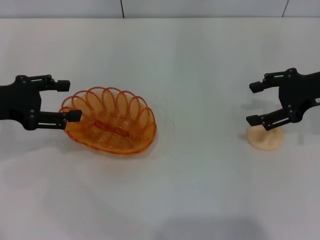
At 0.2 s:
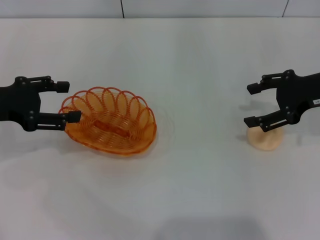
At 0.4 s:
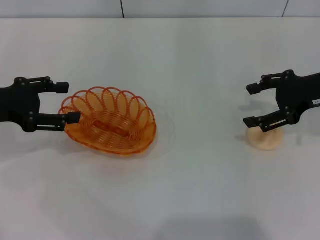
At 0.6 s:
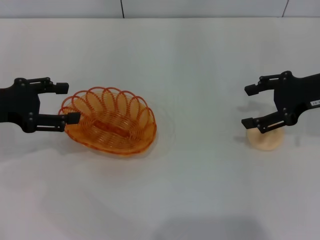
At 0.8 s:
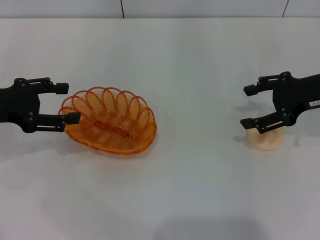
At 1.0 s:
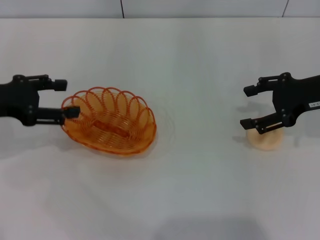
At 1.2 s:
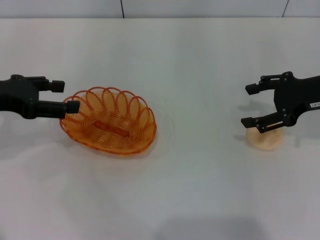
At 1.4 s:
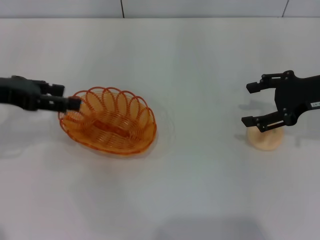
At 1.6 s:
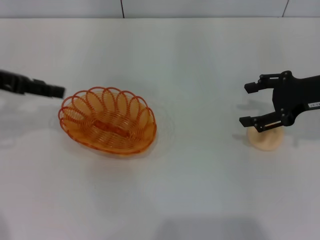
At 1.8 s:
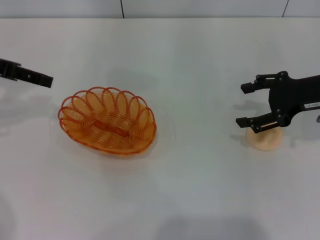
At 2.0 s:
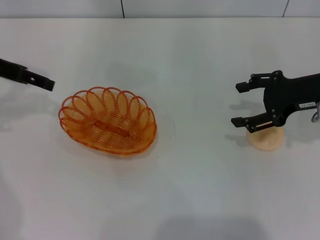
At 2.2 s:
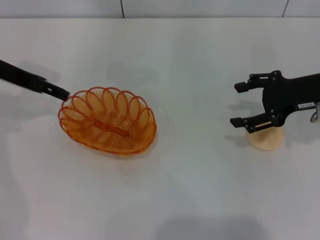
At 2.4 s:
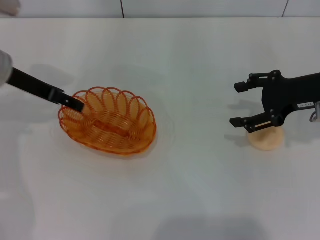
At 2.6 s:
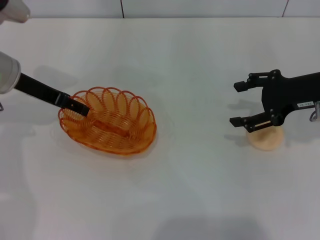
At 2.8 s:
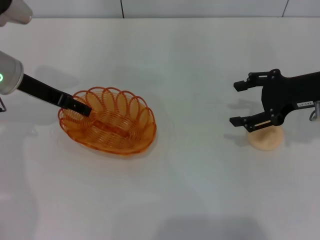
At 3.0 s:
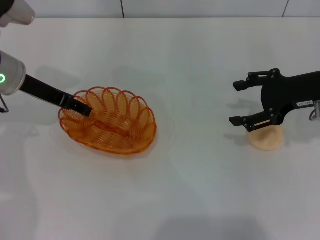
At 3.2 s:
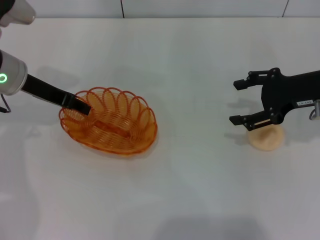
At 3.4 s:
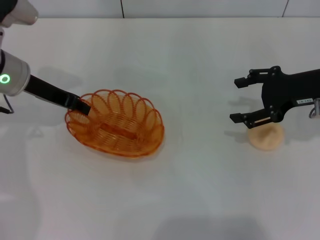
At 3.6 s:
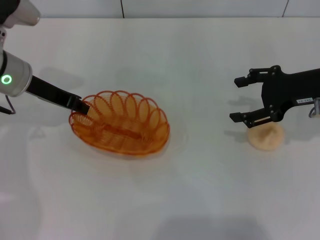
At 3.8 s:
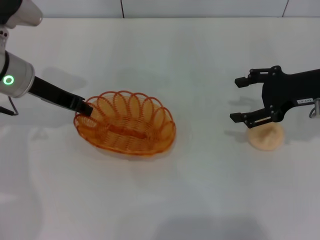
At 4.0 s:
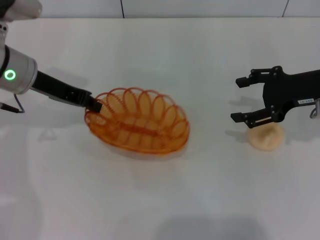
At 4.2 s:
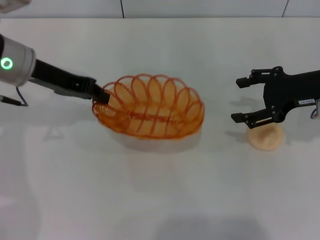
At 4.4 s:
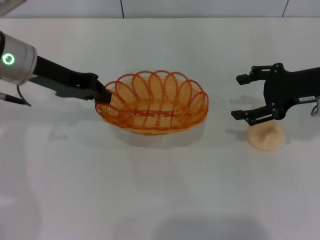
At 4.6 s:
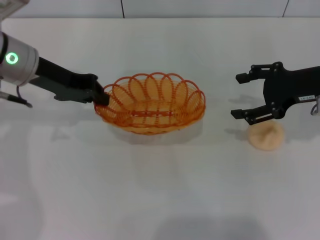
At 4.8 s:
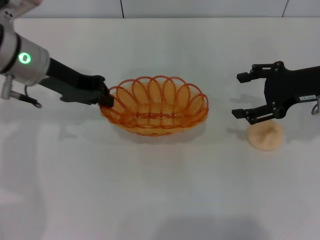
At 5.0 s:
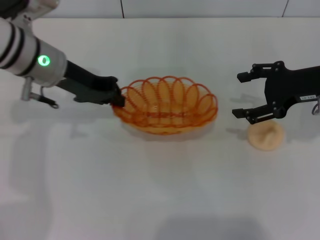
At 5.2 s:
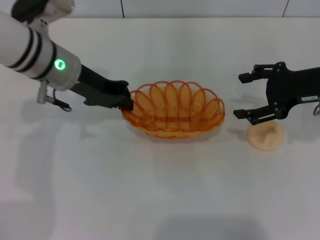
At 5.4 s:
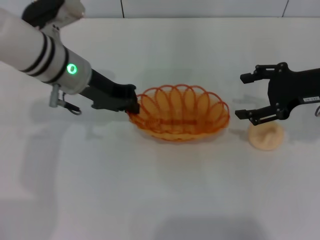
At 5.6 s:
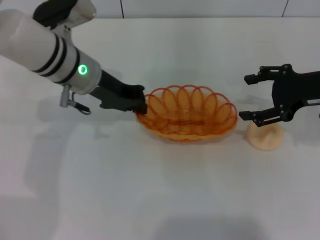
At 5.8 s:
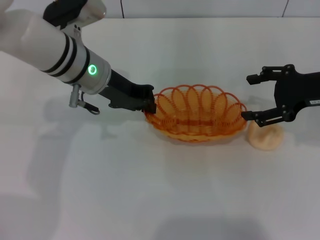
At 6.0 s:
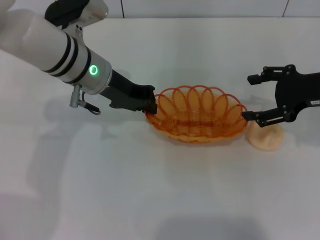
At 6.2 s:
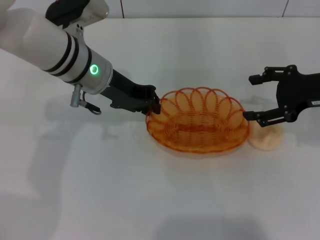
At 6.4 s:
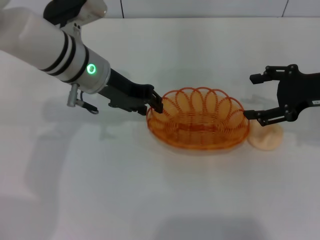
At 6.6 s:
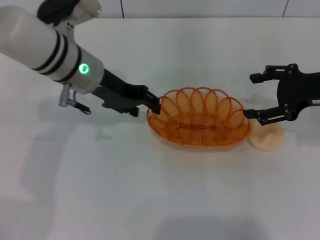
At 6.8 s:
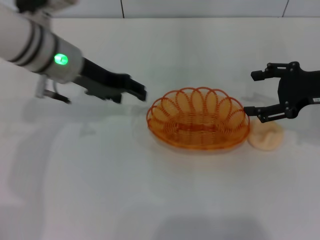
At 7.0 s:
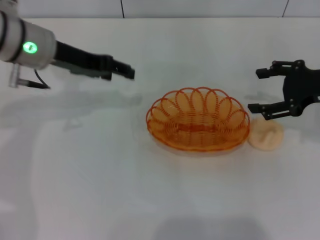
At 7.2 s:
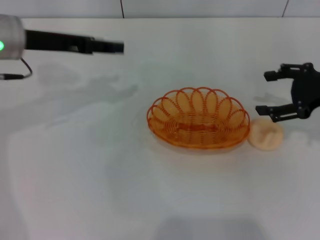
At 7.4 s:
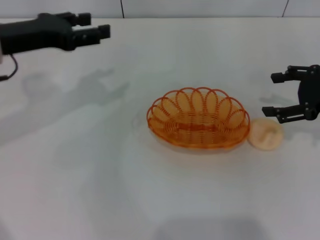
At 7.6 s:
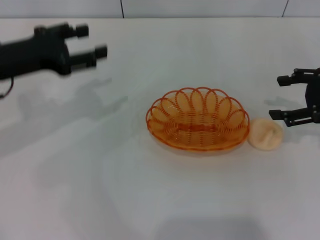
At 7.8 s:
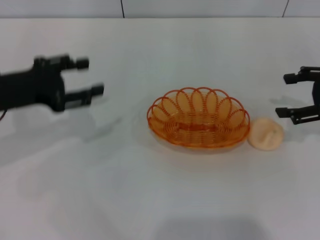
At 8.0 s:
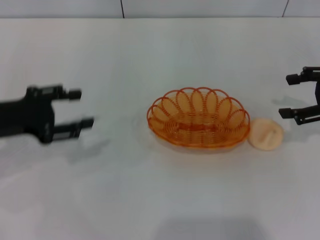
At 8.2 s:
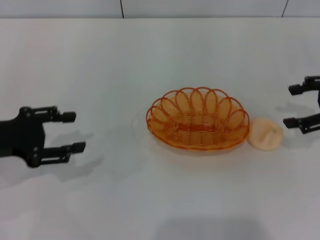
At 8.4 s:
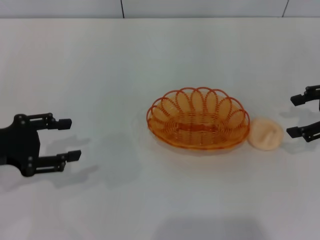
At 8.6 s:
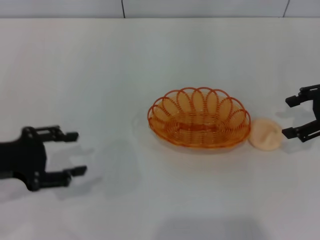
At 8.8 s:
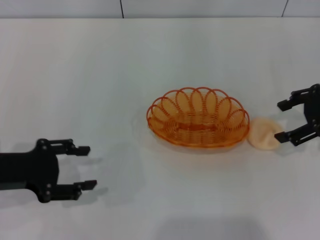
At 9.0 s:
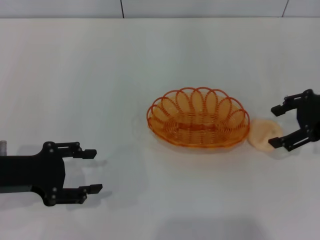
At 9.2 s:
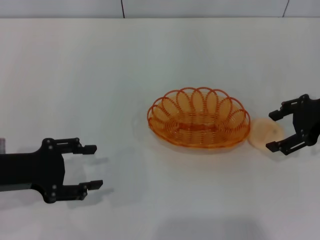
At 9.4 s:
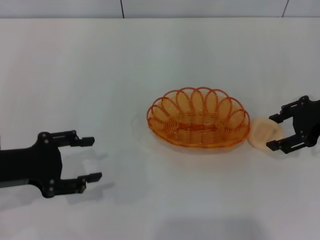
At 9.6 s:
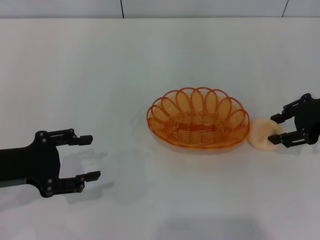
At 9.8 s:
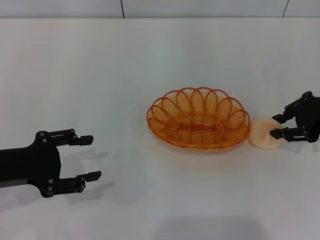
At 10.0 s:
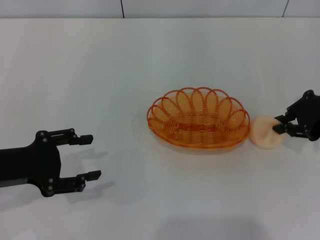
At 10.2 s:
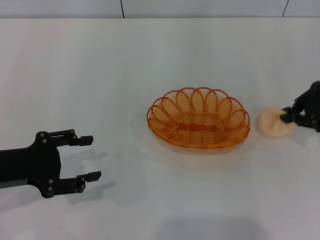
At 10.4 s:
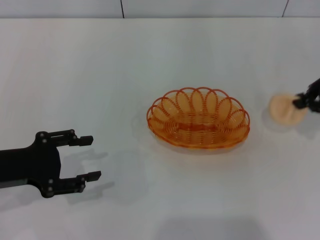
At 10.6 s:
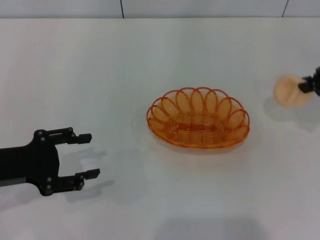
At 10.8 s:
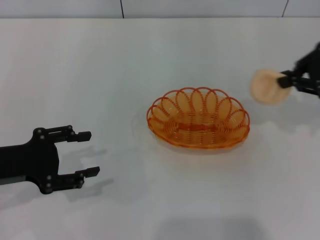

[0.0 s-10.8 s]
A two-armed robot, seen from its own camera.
Step, 0.0 to 4.2 s: Pick up the basket with the left gripper.
Step, 4.6 to 7.0 s: Place the basket in the center of view with the left gripper.
Step, 7.2 to 10.4 s: Pick up the egg yolk pastry with the right gripper.
0.0 to 1.6 s: The left gripper moves upward, approximately 5 cm.
1.6 to 3.0 s: The left gripper goes roughly 10 cm to the right and downward.
3.0 to 4.6 s: The left gripper closes its fingers.
4.6 to 6.2 s: The left gripper travels to the right by about 10 cm.
6.2 to 7.8 s: The left gripper travels to the left and backward by roughly 15 cm, and opens its fingers. The right gripper changes place by some 5 cm.
7.8 to 9.2 s: The left gripper is displaced backward by about 5 cm.
9.2 to 10.8 s: The right gripper travels upward by about 10 cm, and closes up.

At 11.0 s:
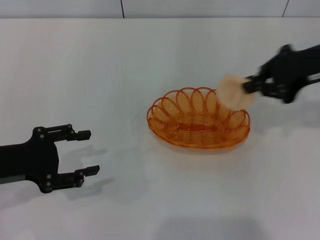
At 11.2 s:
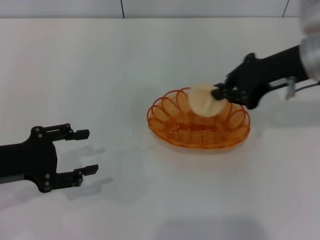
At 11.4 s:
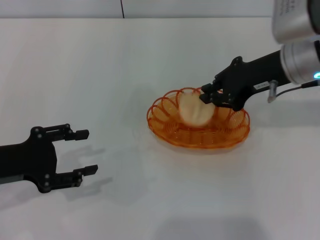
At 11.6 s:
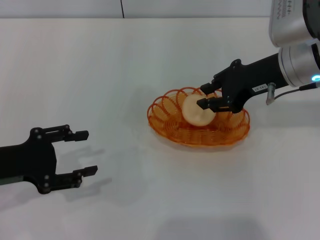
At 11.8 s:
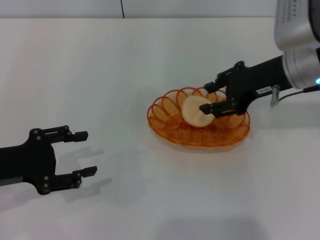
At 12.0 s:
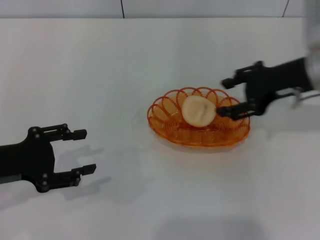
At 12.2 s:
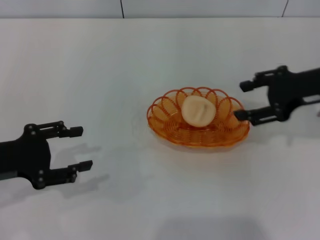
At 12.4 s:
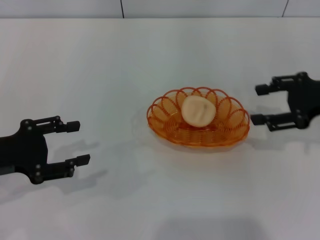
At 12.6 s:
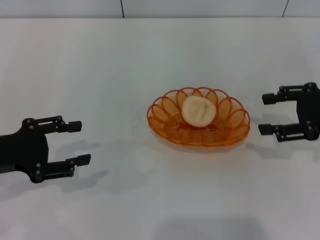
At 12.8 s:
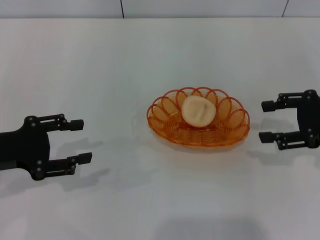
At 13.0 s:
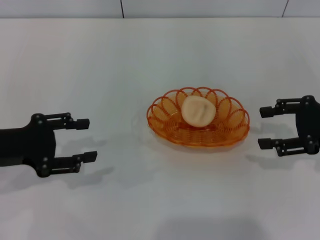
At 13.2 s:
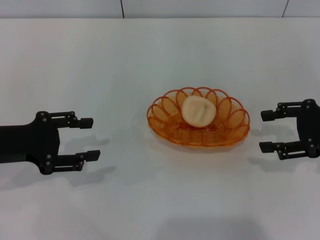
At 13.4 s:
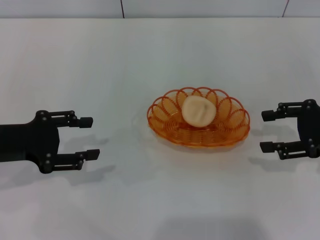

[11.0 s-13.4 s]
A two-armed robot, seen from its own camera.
Step, 11.0 to 12.2 s: Place the egg yolk pastry into the basket with the right gripper.
11.0 to 12.2 s: The right gripper reaches approximately 5 cm to the left, then returns, and opens up.
12.2 to 13.4 s: The right gripper heads to the right, covering roughly 5 cm.
